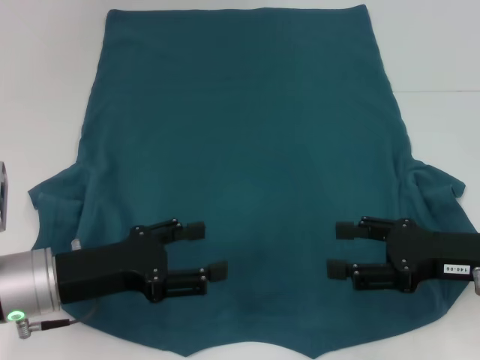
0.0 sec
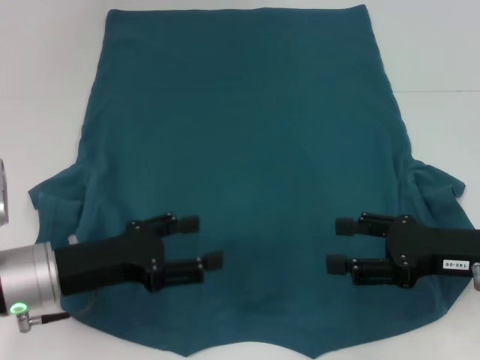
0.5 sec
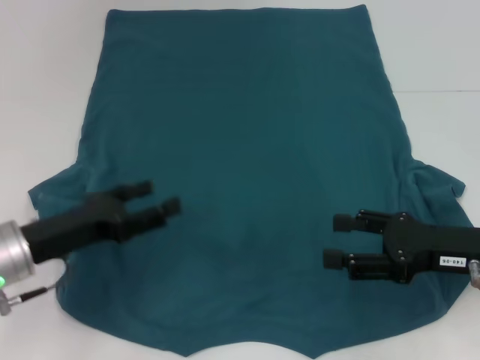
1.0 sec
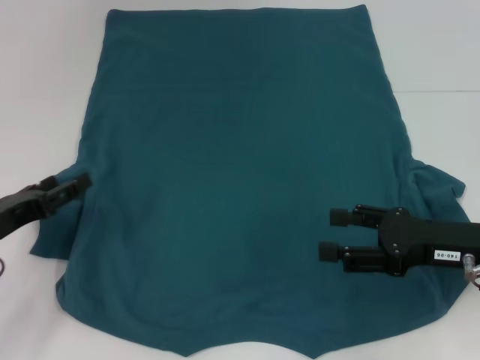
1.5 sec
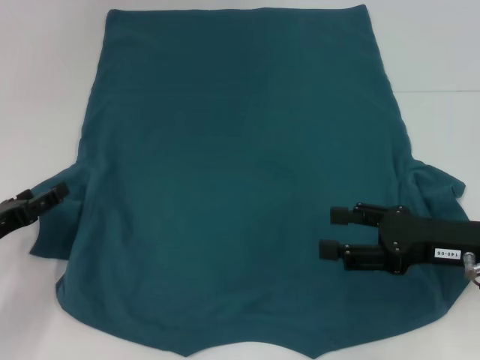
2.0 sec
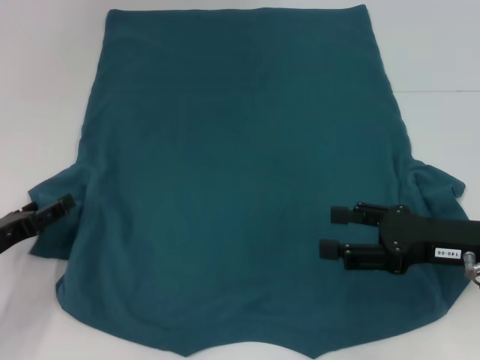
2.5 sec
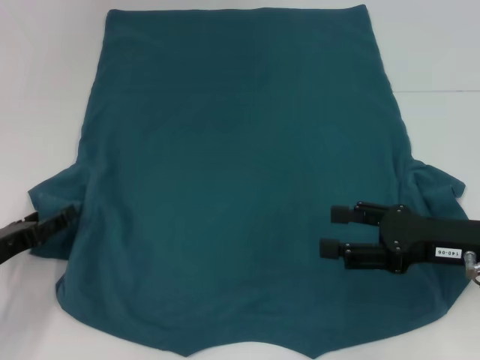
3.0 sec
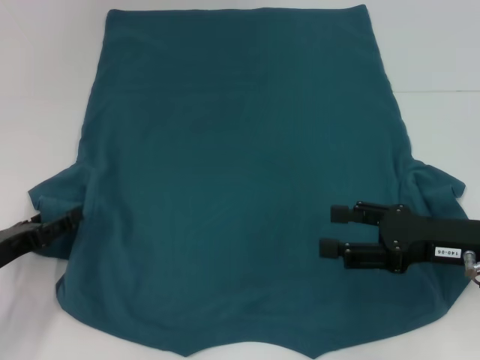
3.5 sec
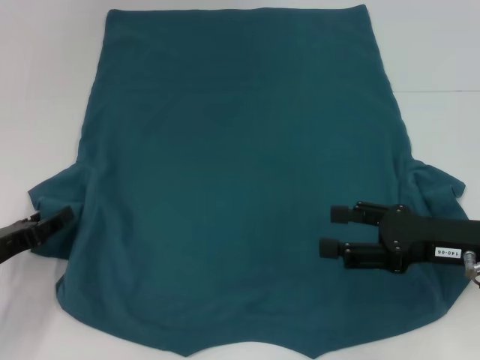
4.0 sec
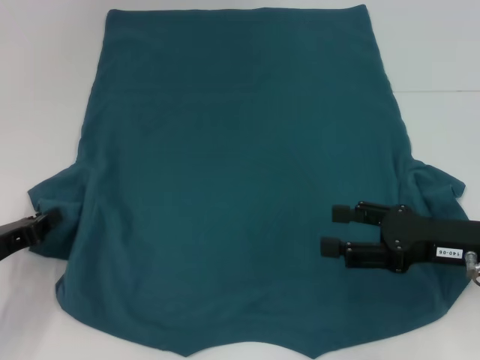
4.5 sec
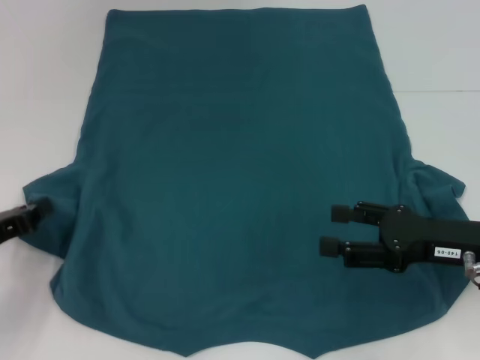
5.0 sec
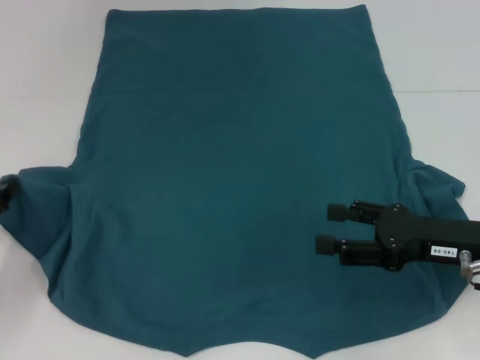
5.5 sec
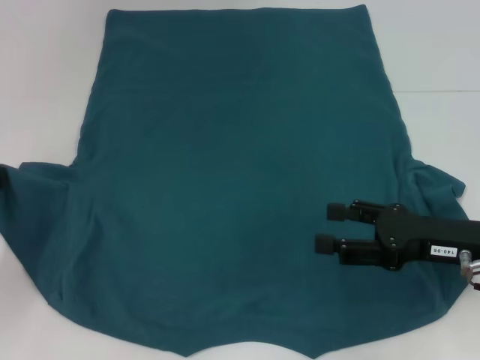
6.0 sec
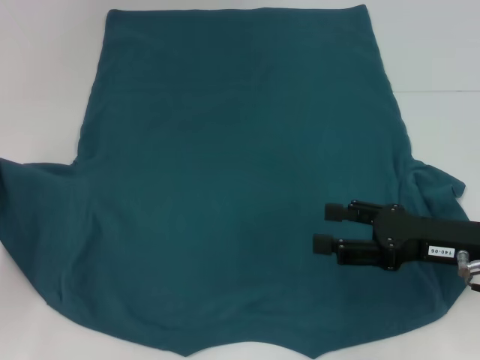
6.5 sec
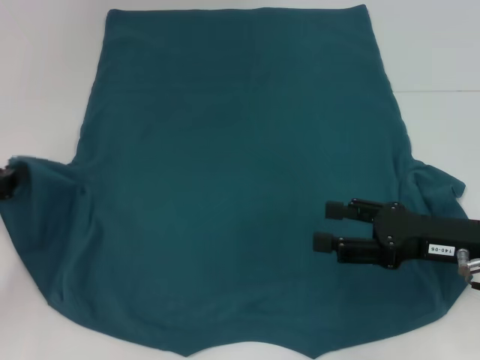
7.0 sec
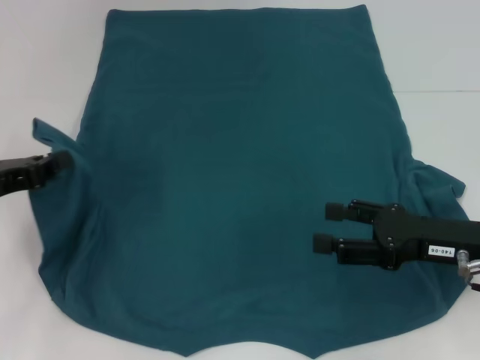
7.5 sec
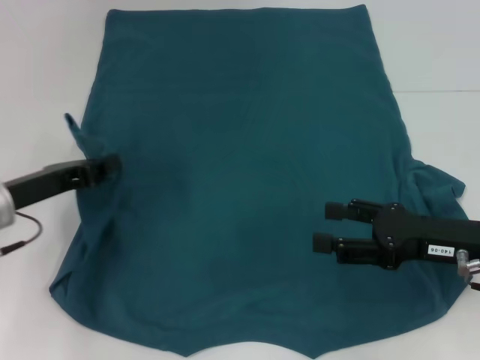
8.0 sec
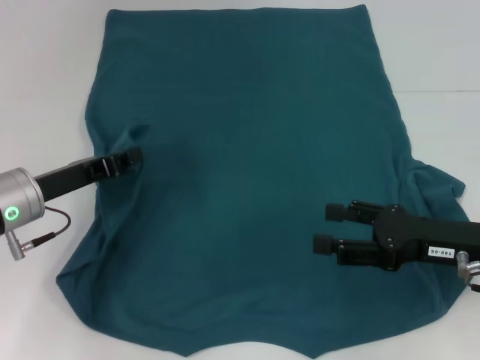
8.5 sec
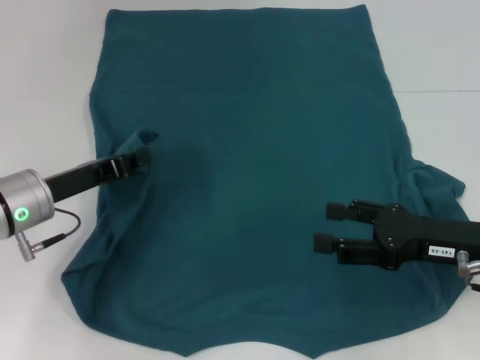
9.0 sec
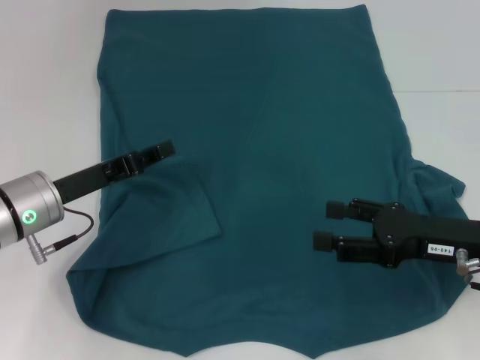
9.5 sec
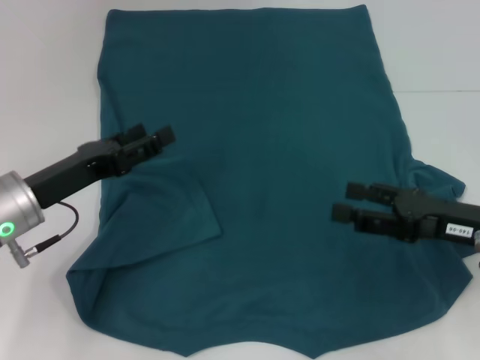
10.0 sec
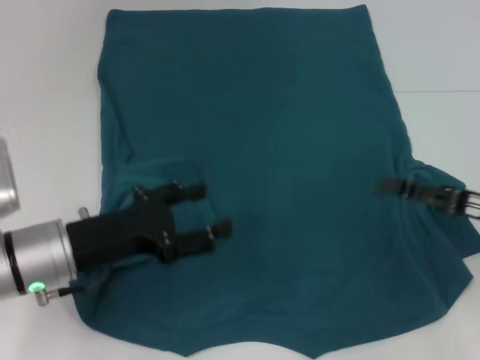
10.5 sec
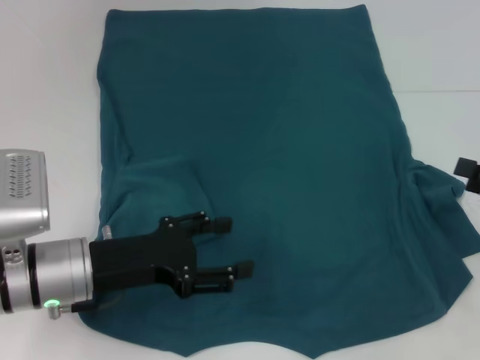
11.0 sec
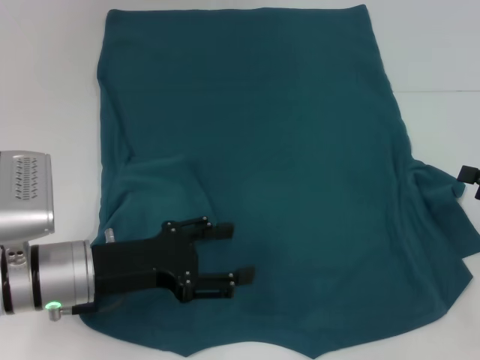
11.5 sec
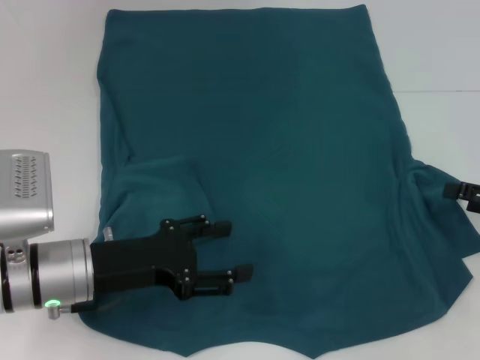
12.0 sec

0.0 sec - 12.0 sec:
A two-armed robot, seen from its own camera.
Step, 0.0 sec - 9.0 sec: Fold the bottom left sleeve with your left hand.
0.0 sec - 2.0 sec: The left gripper shifts some 10 cm to the left.
2.0 sec - 4.0 sec: There are only small adjustments of the grippers.
4.0 sec - 6.0 sec: The left gripper shifts by approximately 5 cm, and closes its fingers.
6.0 sec - 8.0 sec: The left gripper goes about 10 cm to the right.
8.0 sec - 10.0 sec: The left gripper opens up.
10.0 sec - 12.0 sec: The right gripper heads to the right, covering some 10 cm; the left gripper ends up some 5 cm from where it was.

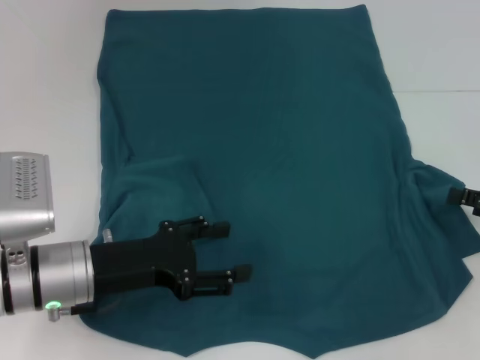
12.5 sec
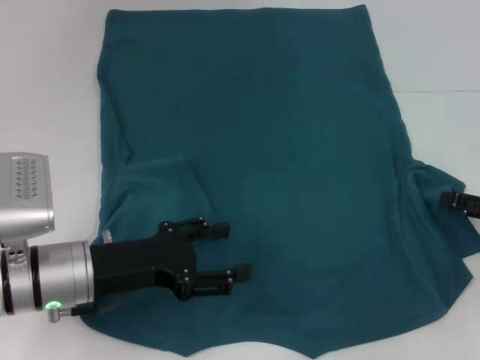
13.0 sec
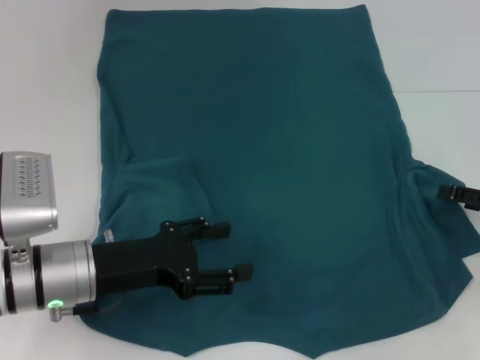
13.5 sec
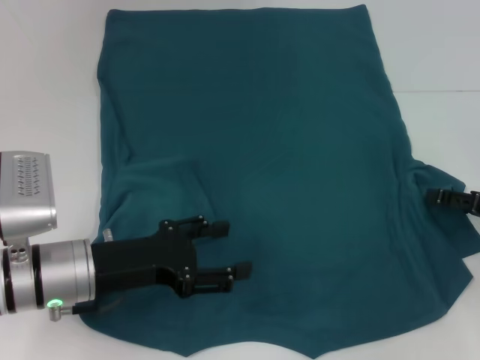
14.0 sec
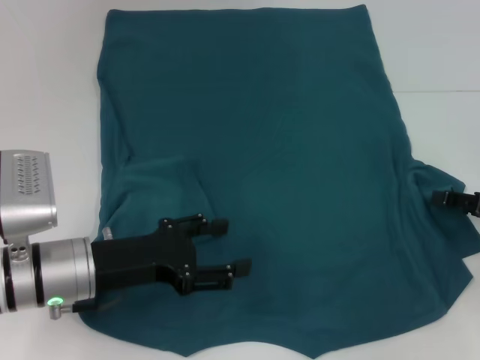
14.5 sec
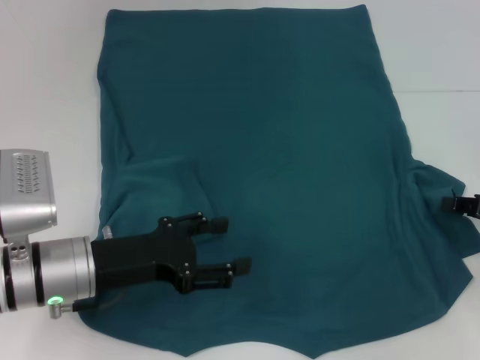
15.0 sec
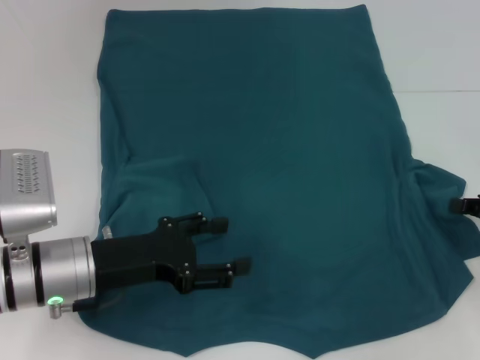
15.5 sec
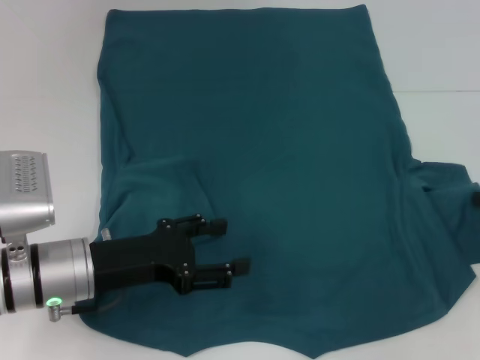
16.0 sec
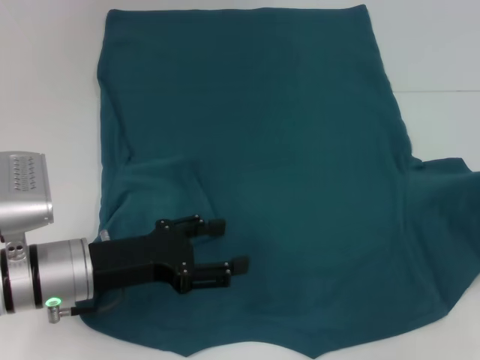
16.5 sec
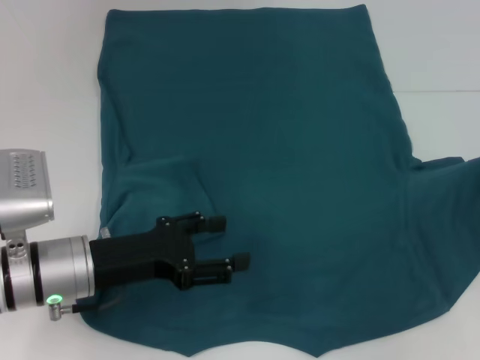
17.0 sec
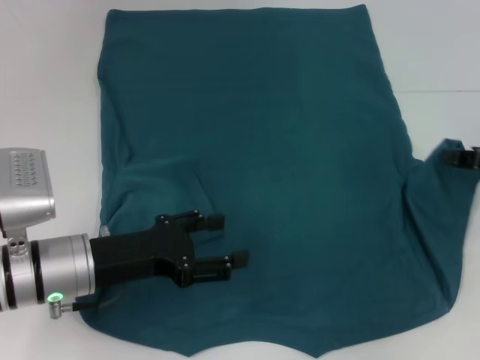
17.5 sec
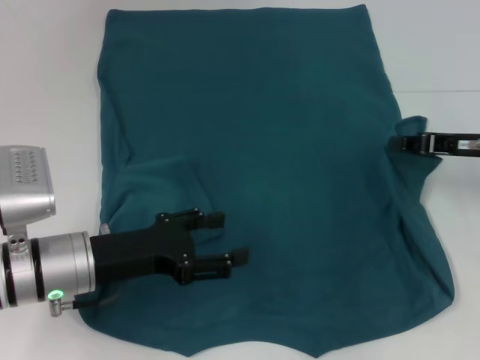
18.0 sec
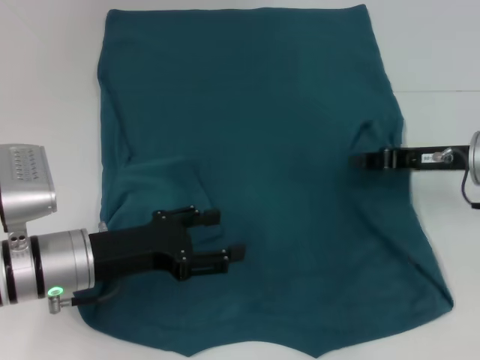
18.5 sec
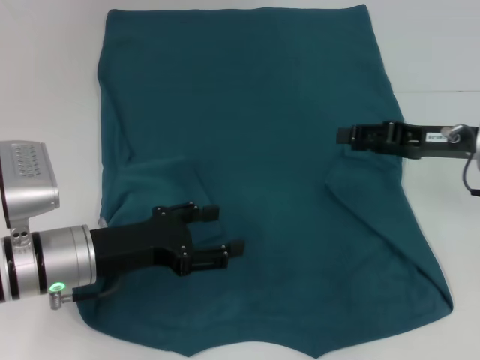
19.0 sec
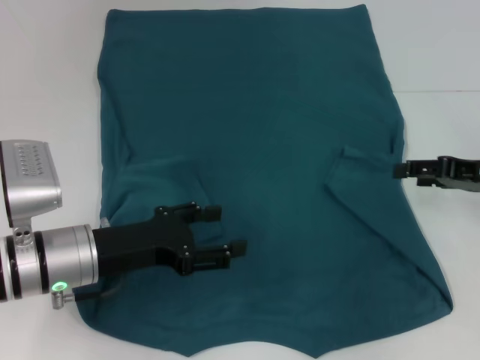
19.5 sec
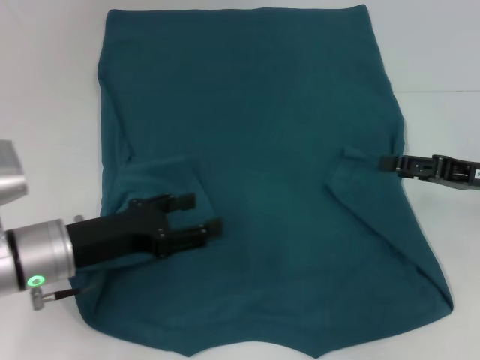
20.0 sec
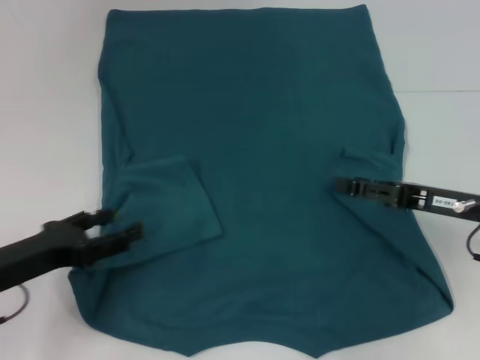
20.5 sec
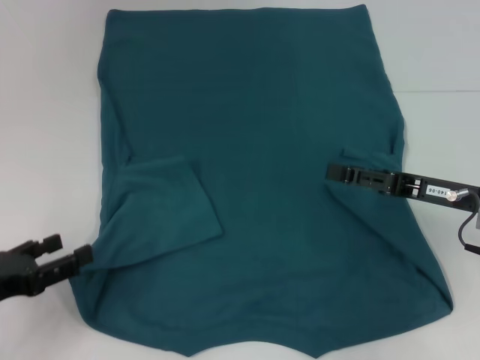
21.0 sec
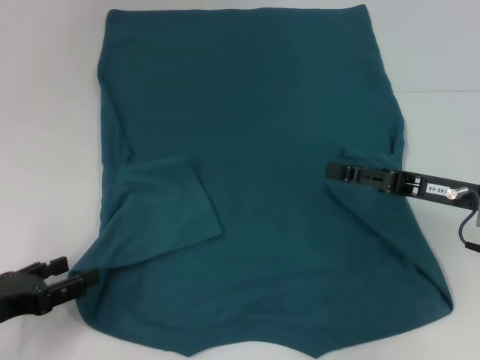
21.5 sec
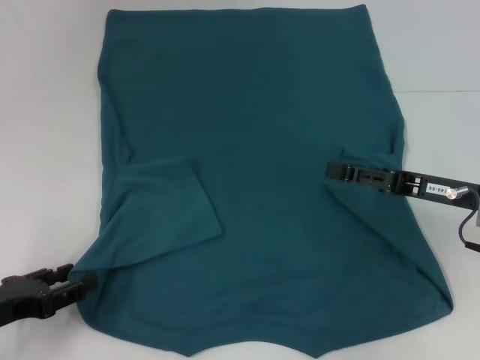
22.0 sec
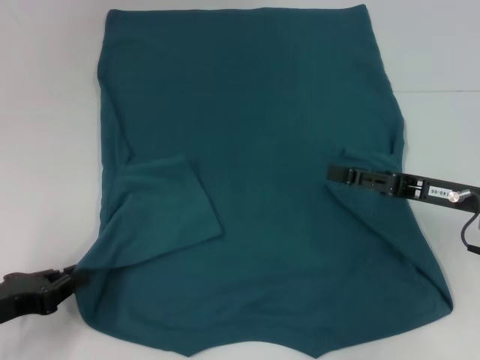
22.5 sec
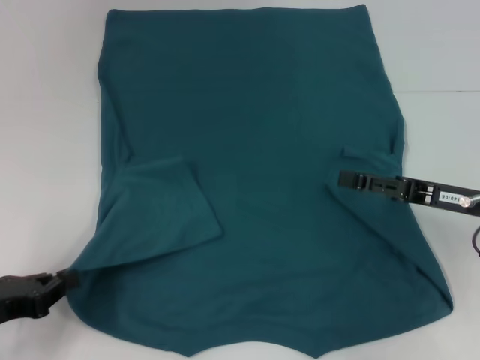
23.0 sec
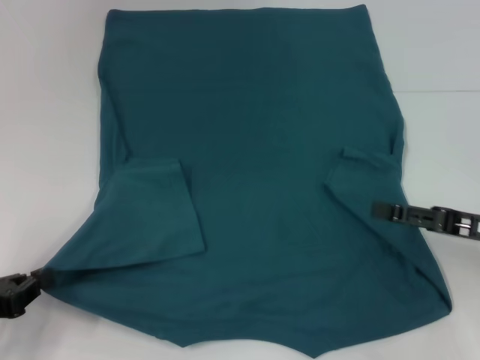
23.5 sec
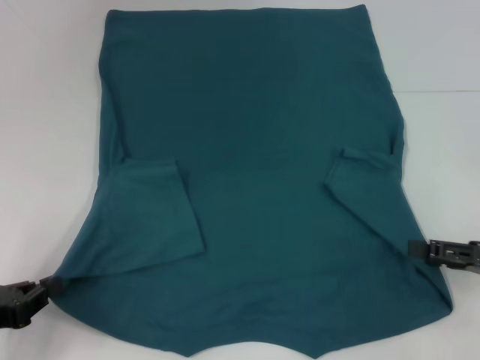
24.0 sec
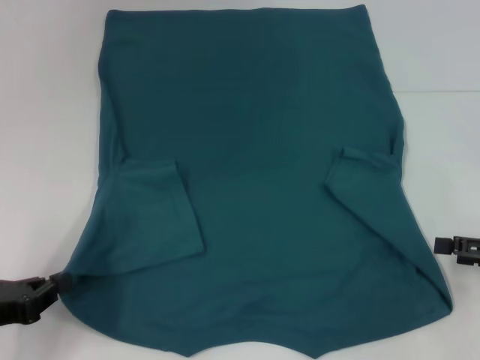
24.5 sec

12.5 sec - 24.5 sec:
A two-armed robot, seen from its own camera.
Step, 12.5 sec - 20.5 sec: Fold the bottom right sleeve to the right.
12.5 sec - 14.5 sec: There are only small adjustments of the grippers.
14.5 sec - 16.5 sec: The right gripper closes.
16.5 sec - 18.5 sec: The right gripper goes about 15 cm to the left.
18.5 sec - 20.5 sec: The left gripper shifts some 10 cm to the left. The right gripper goes some 5 cm backward, and opens.
20.5 sec - 22.5 sec: The left gripper ends up some 5 cm from where it was, and closes.
22.5 sec - 24.5 sec: The right gripper shifts roughly 10 cm to the right and backward.

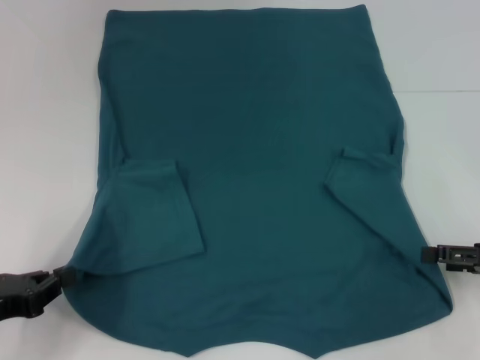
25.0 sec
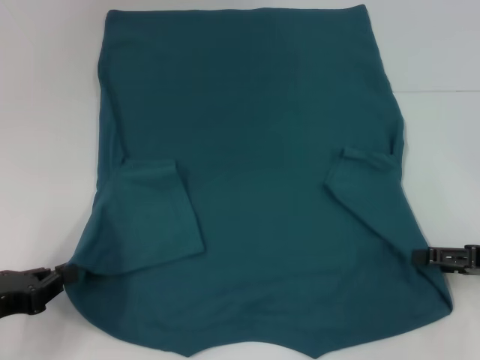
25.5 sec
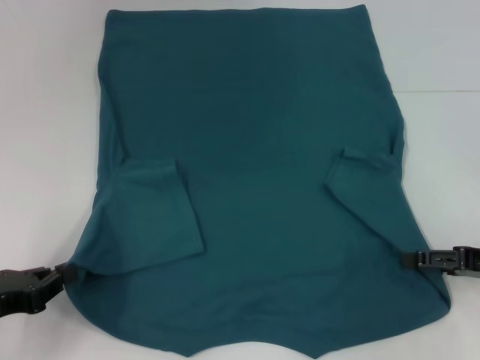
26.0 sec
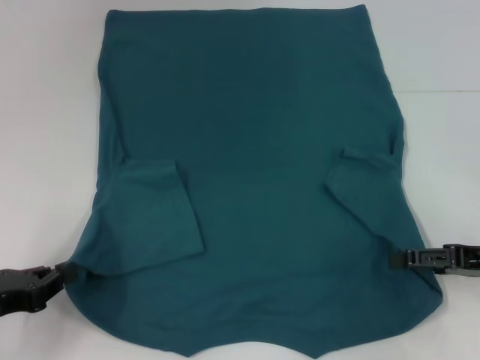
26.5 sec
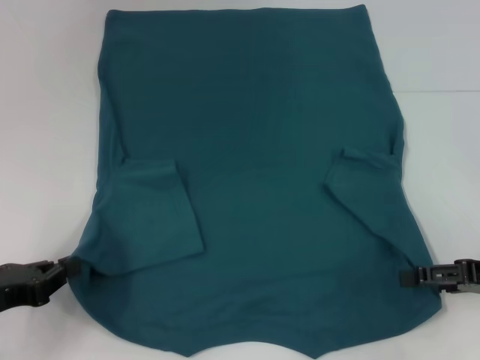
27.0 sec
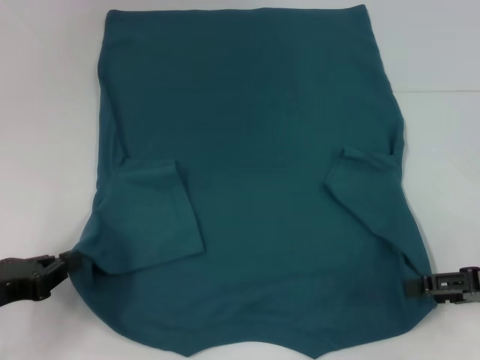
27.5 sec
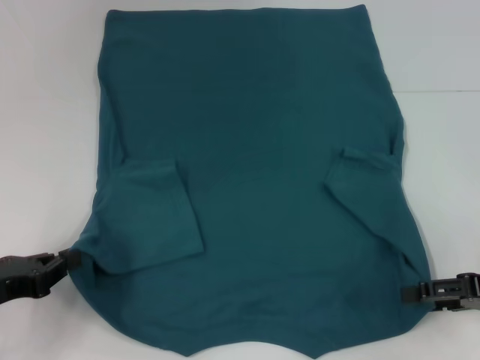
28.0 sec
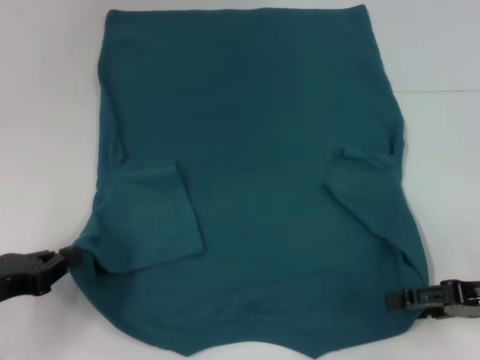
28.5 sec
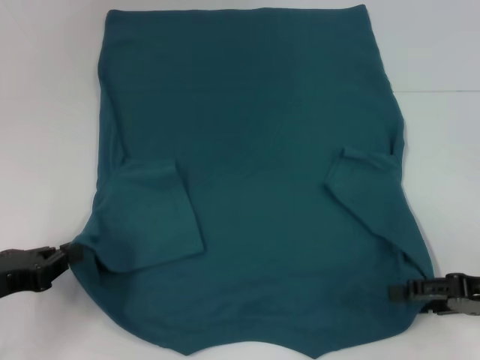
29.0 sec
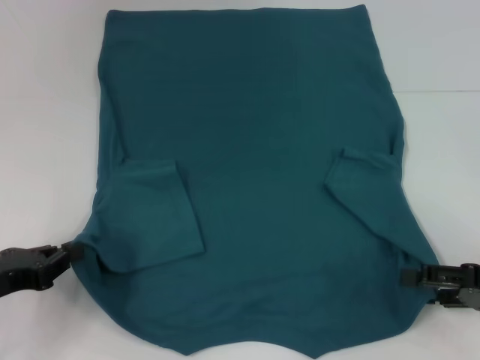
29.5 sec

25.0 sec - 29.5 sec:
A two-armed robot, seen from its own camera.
25.0 sec - 29.5 sec: The grippers move only a little.
